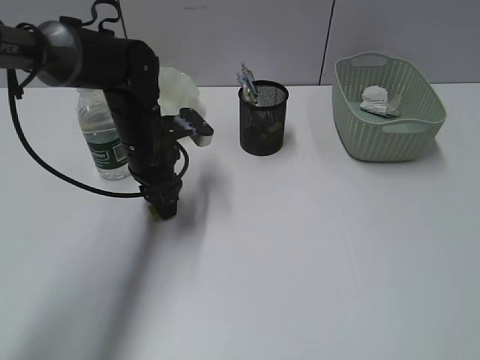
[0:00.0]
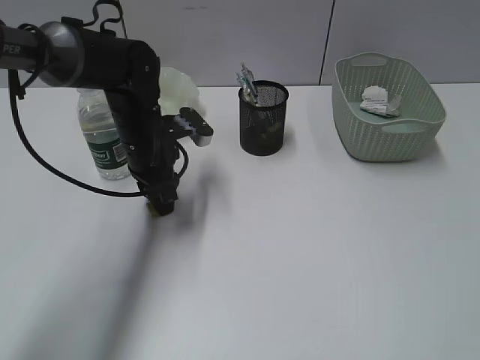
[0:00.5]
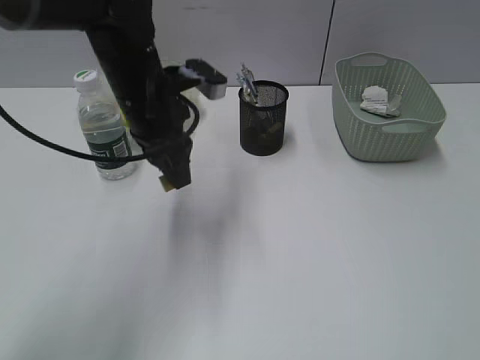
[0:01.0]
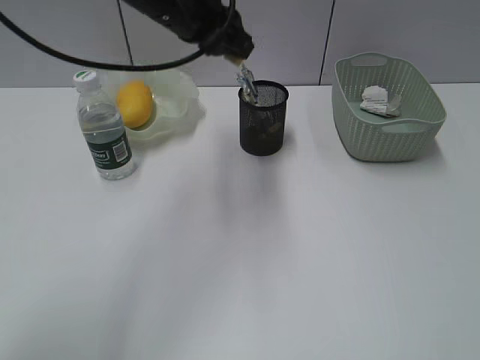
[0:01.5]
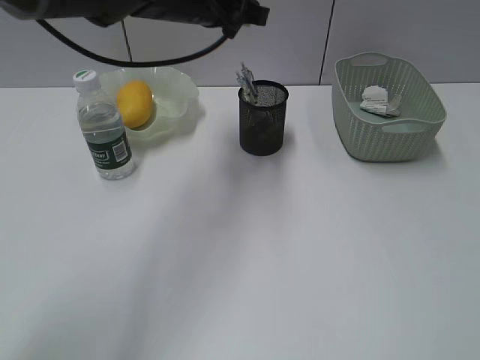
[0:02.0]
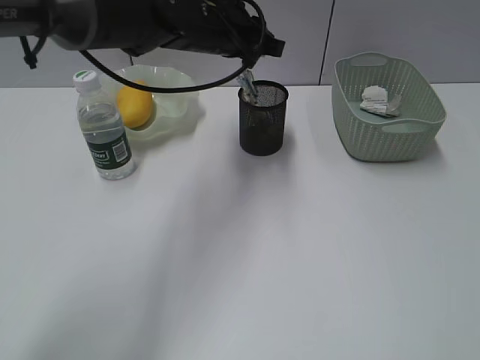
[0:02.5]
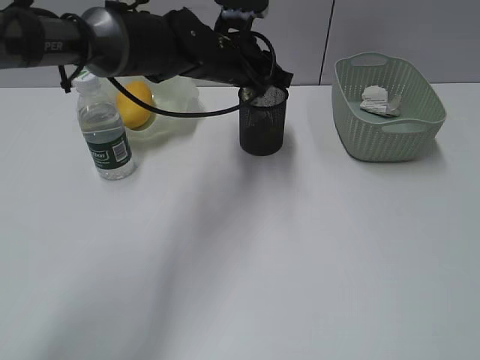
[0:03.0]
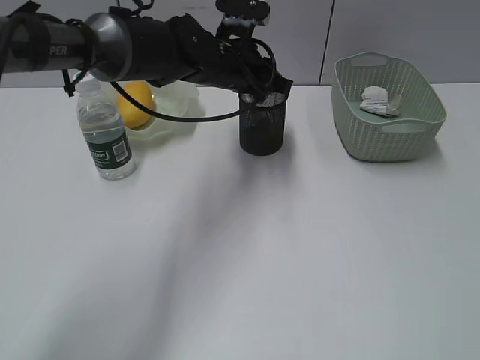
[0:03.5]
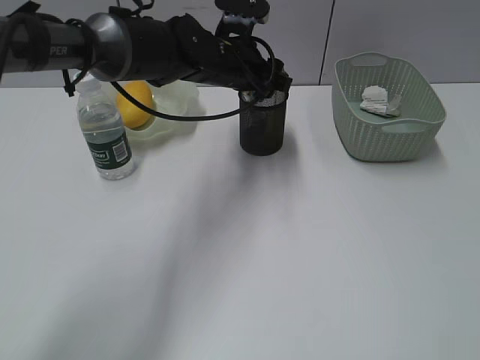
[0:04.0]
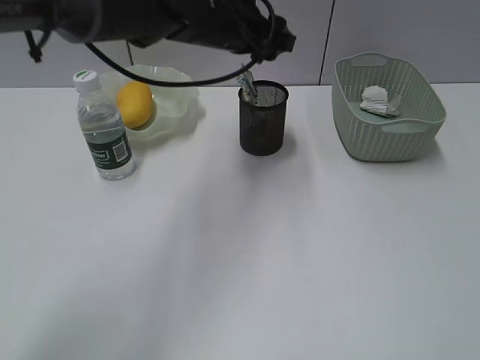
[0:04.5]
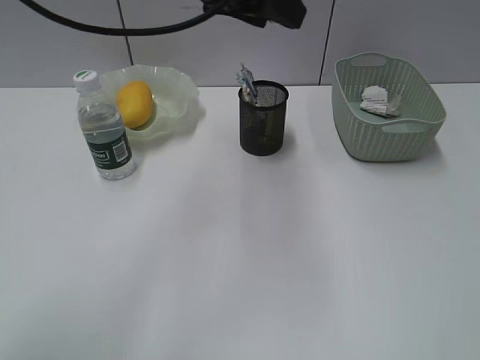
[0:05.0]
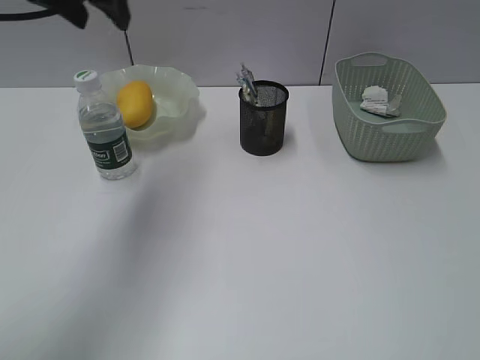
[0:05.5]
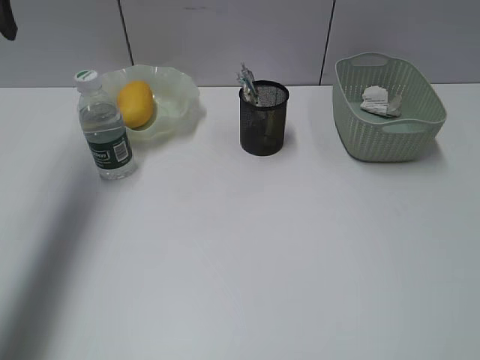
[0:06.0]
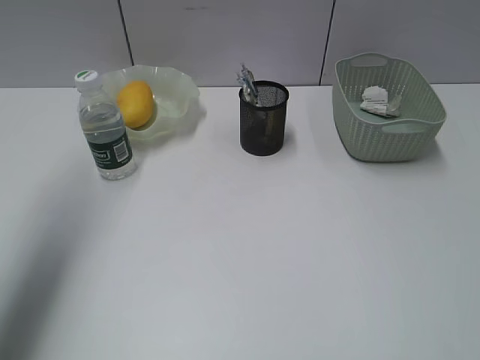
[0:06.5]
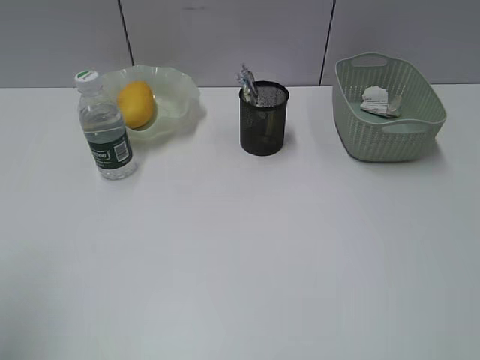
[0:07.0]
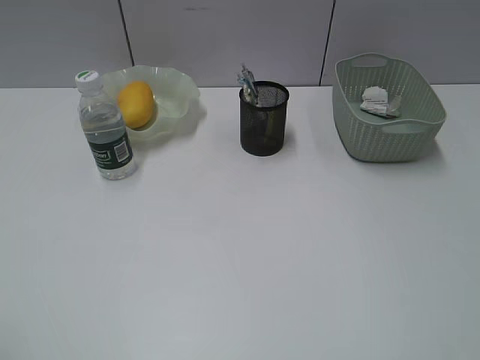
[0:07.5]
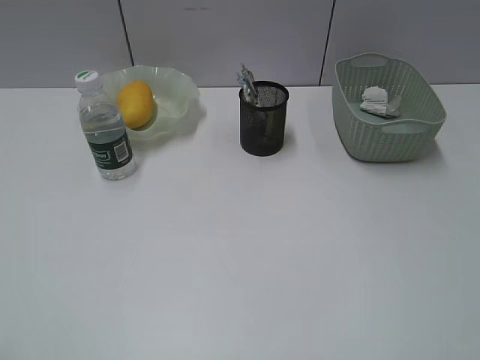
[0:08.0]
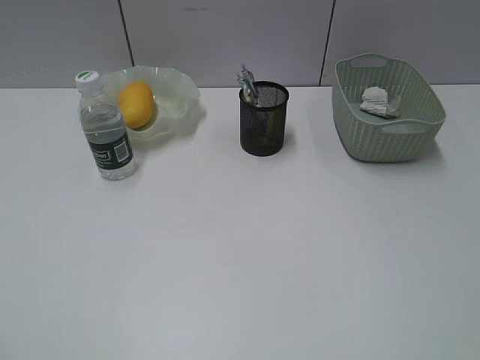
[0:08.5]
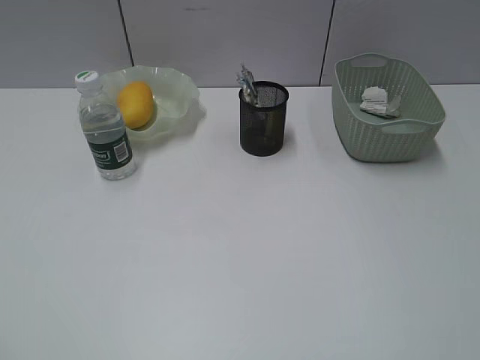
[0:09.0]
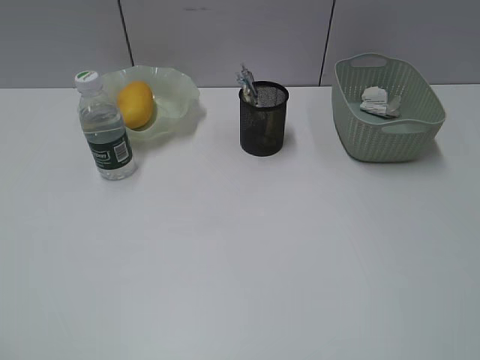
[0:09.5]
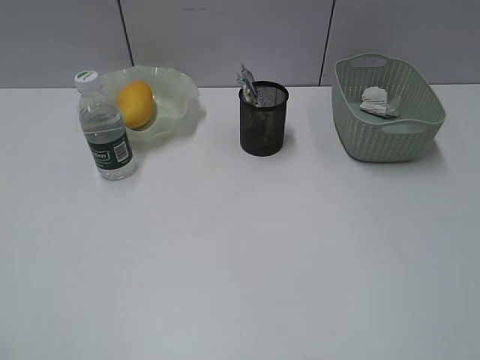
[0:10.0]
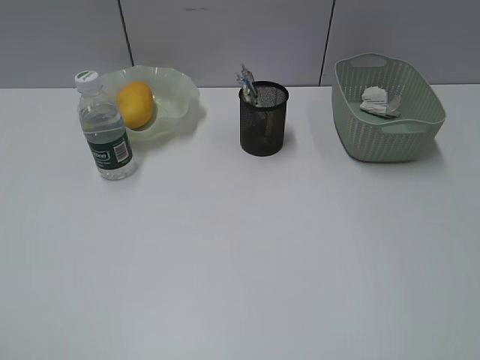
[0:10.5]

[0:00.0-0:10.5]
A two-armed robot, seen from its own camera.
Step, 0:01.0 to 0:04.0: Place the eraser in pen holder with left gripper.
0:00.0 to 0:02.0: The left gripper goes about 15 cm upward.
0:02.0 to 0:04.0: The left gripper shifts about 10 cm downward, and opens up.
0:04.0 to 0:06.5: The left gripper travels to the left, upward and backward by roughly 35 cm.
0:06.5 to 0:08.5: The left gripper travels backward by some 35 cm.
0:08.5 to 0:10.5: The two grippers keep their place.

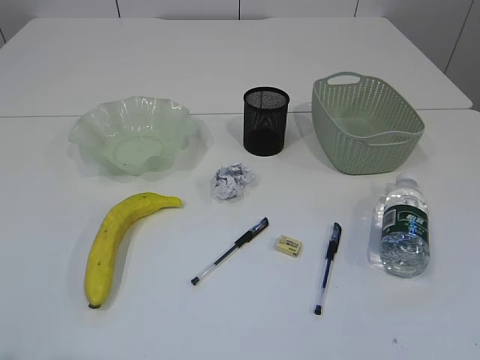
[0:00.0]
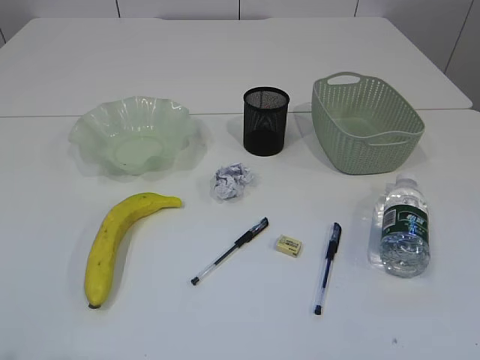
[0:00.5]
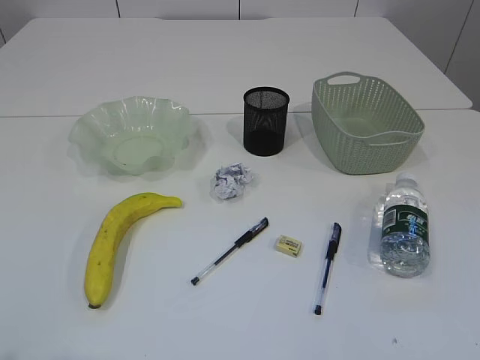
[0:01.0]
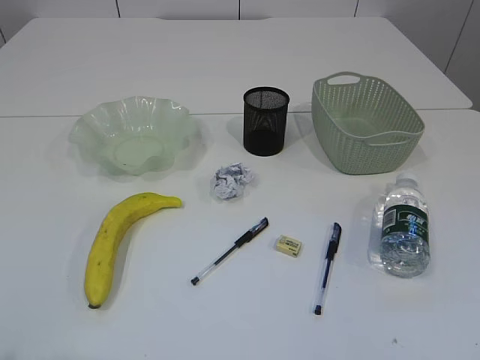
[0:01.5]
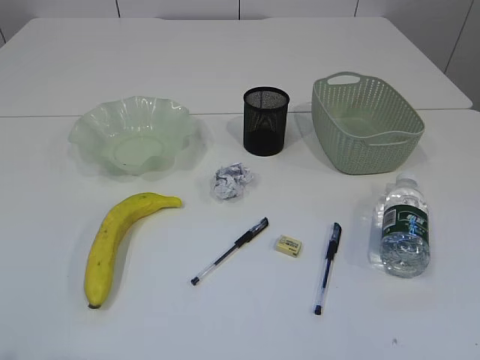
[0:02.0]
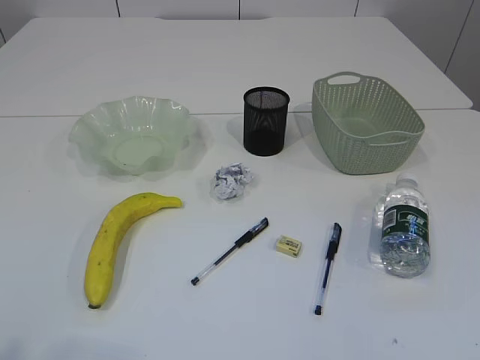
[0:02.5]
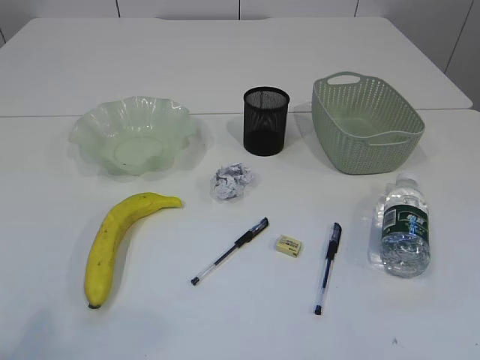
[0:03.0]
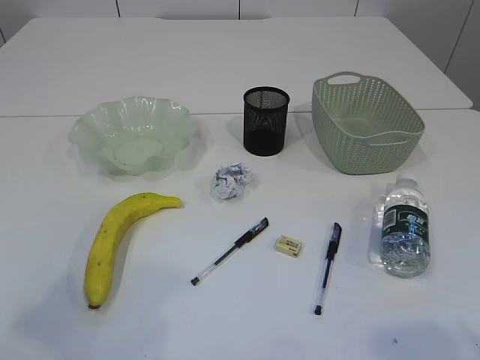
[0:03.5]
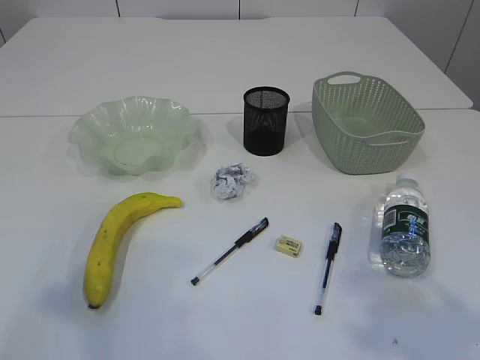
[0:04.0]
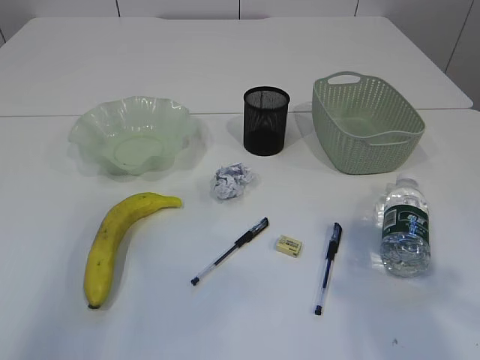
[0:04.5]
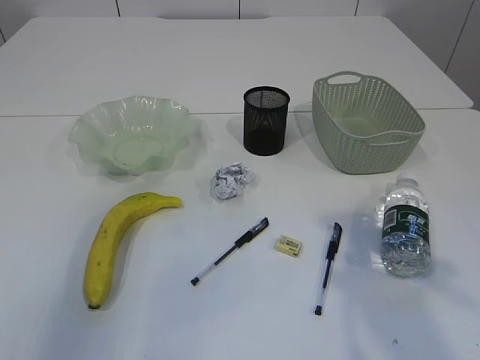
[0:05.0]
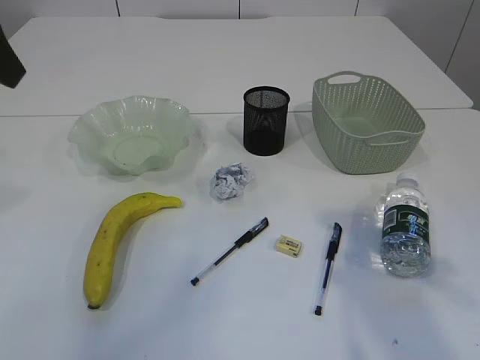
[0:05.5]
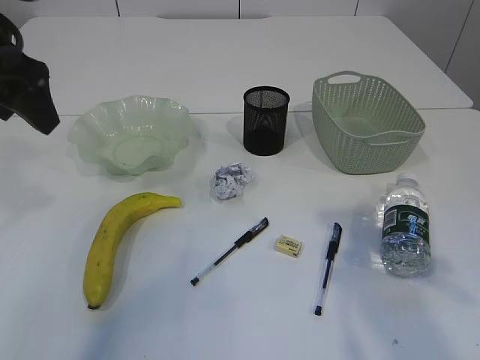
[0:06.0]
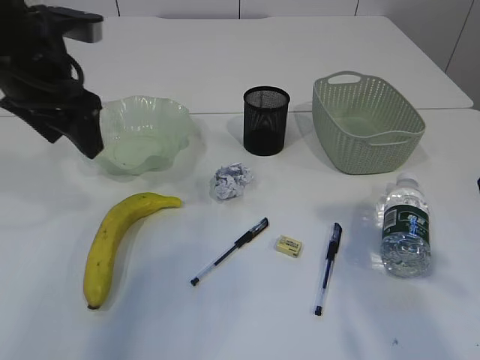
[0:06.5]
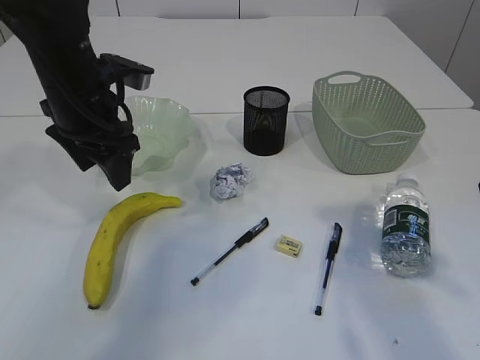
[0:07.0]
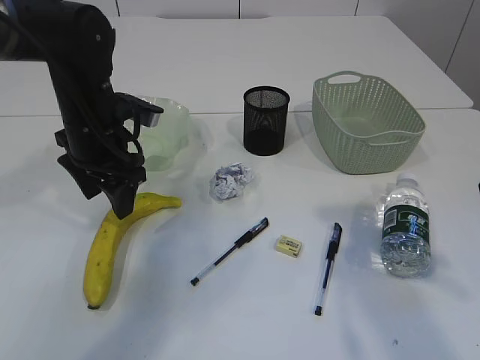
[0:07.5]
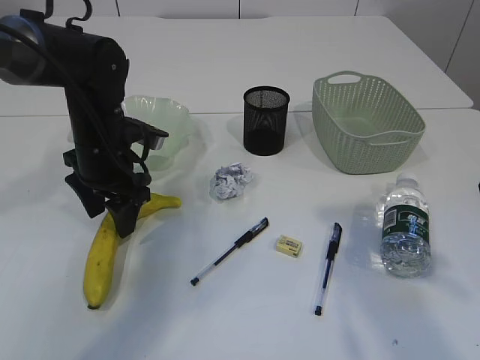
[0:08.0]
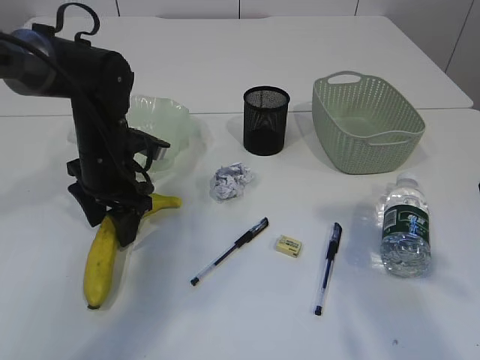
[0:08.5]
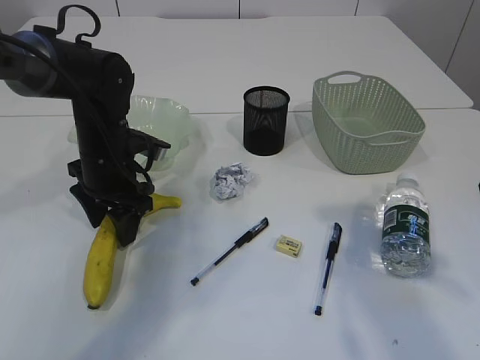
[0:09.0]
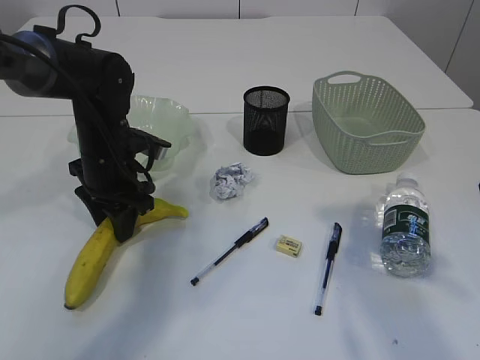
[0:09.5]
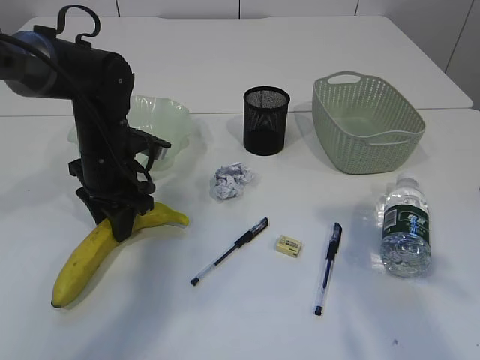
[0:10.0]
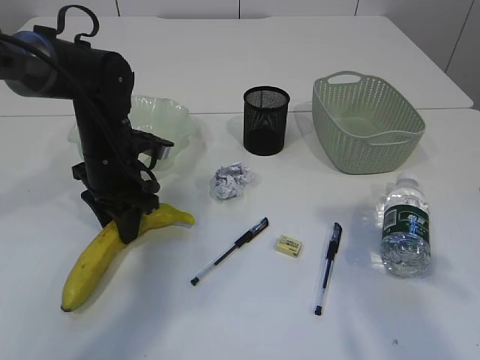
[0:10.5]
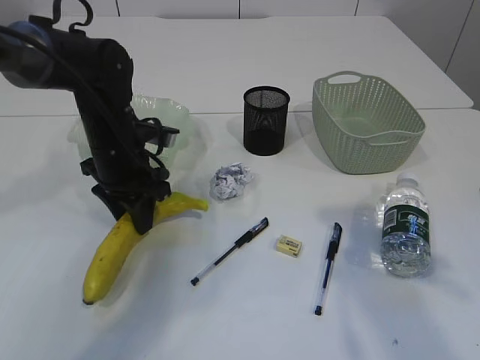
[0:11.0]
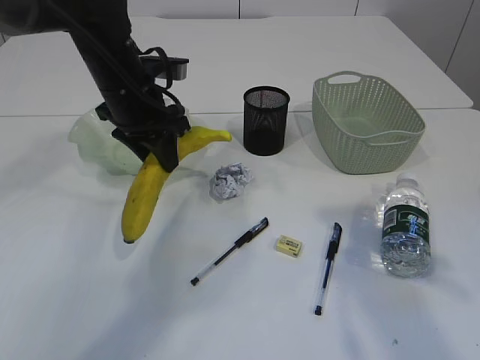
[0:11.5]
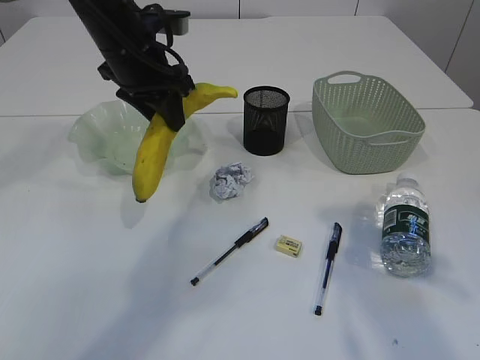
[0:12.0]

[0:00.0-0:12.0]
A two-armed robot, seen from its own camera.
0:02.0 to 0:04.0: The left gripper shifts roughly 10 cm forward. The right gripper moves forward and upward, approximately 10 cm.
0:04.0 to 0:06.0: The left gripper shifts some 20 cm forward. The right gripper shifts about 10 cm forward.
0:06.0 to 0:08.0: The left gripper goes roughly 20 cm downward.
0:08.0 to 0:10.0: The left gripper closes up.
0:10.0 to 0:12.0: The left gripper goes approximately 10 cm upward.

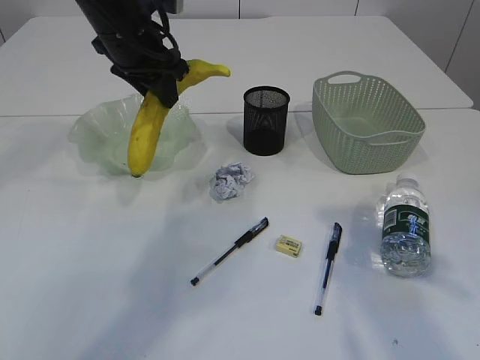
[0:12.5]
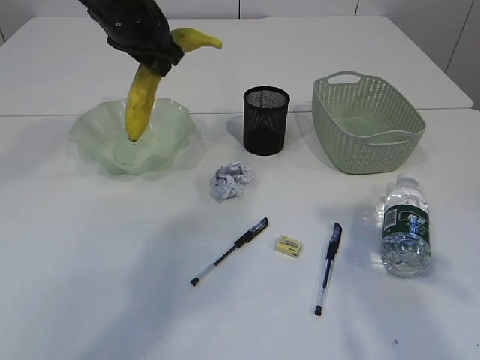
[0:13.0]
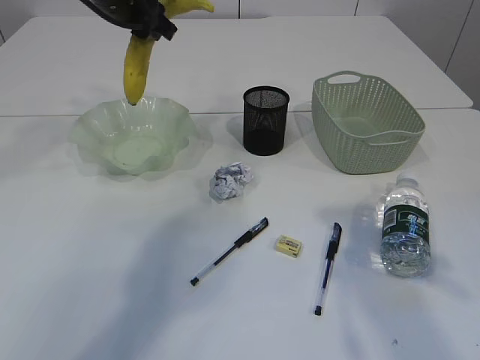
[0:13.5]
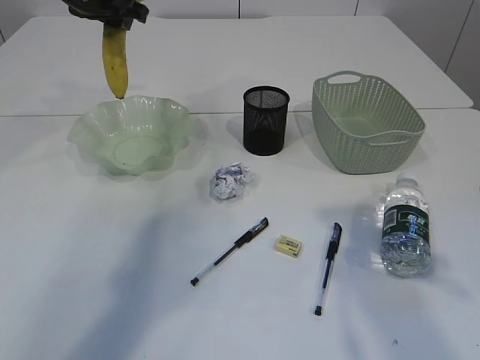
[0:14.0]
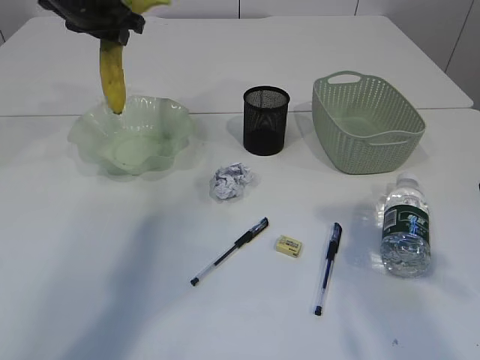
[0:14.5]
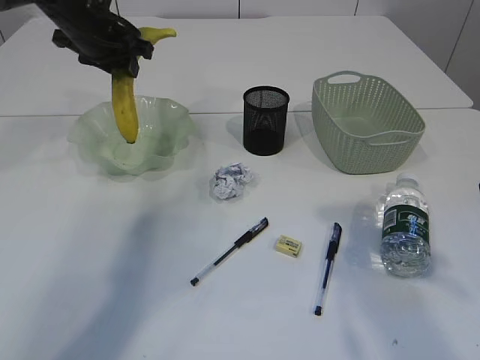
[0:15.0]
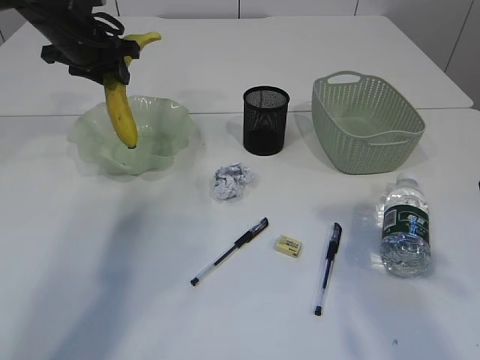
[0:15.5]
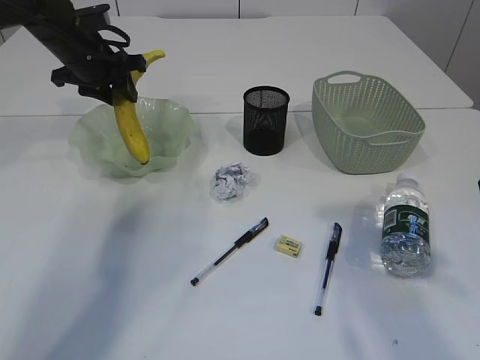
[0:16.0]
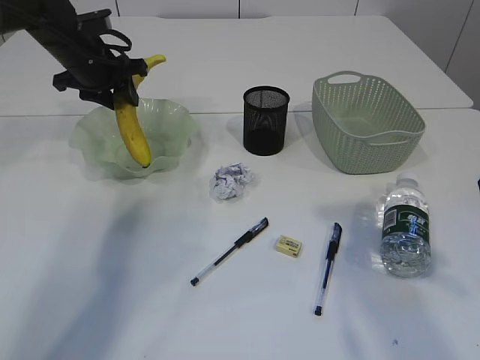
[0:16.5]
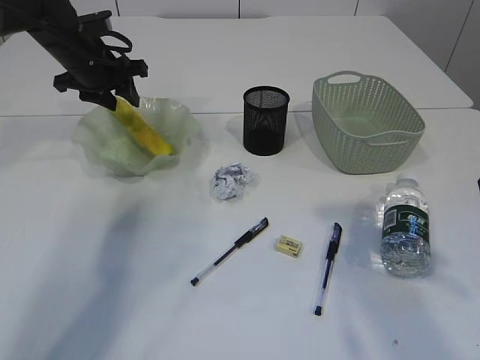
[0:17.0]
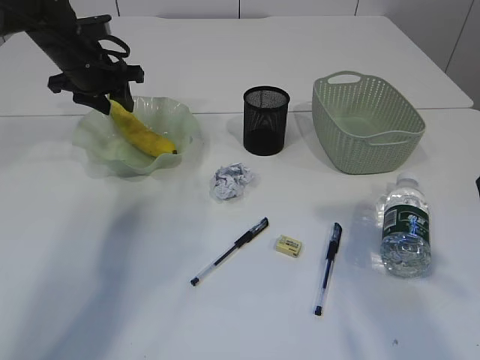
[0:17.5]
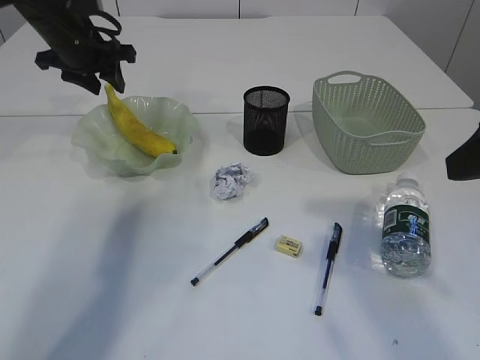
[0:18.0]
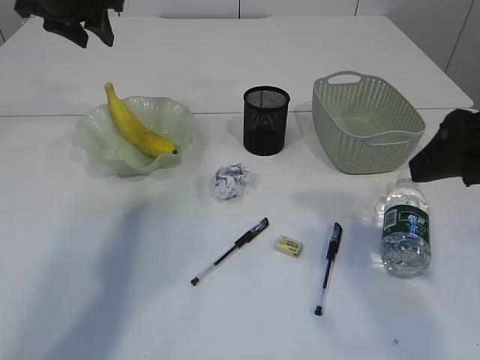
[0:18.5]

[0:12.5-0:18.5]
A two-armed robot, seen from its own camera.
Step, 0:12.5 to 0:18.0: Place the banana in the plate.
0:12.5 to 0:14.5: The left gripper moves to the left and forward, some 10 cm.
0:14.5 to 0:16.5: The left gripper shifts about 10 cm downward.
0:16.5 to 0:18.5: The left gripper shifts approximately 10 cm upward.
